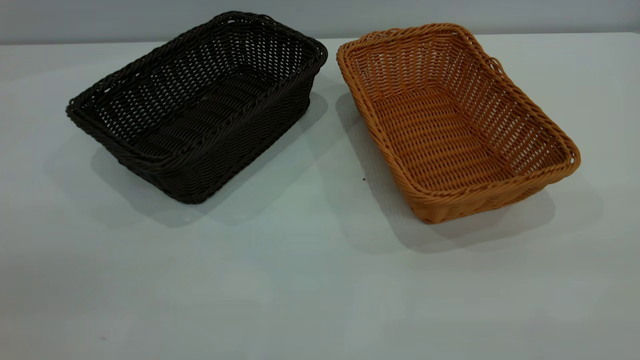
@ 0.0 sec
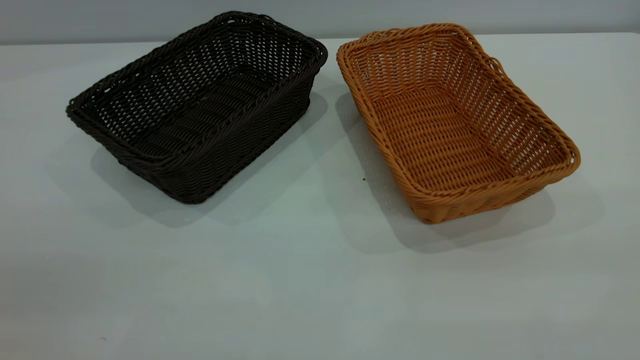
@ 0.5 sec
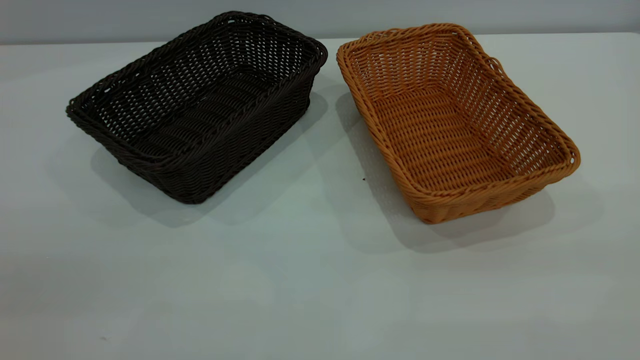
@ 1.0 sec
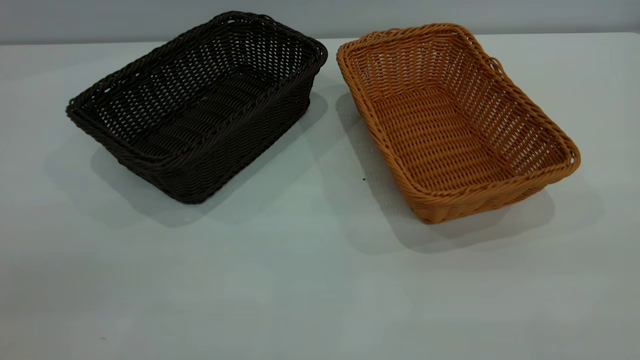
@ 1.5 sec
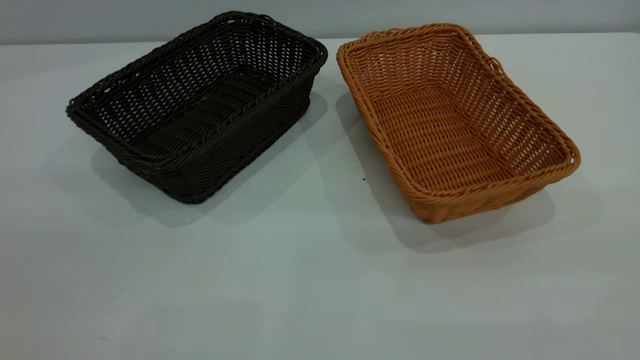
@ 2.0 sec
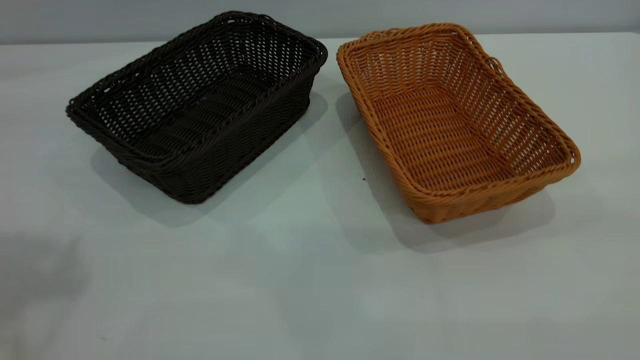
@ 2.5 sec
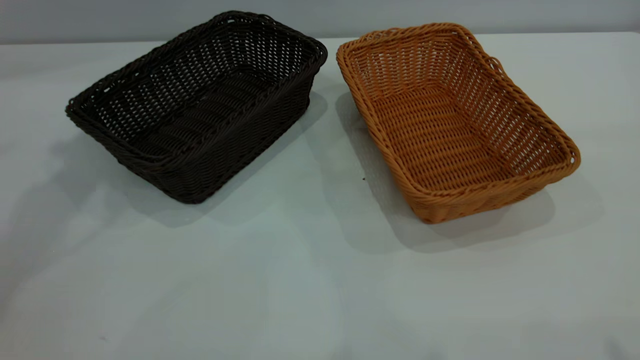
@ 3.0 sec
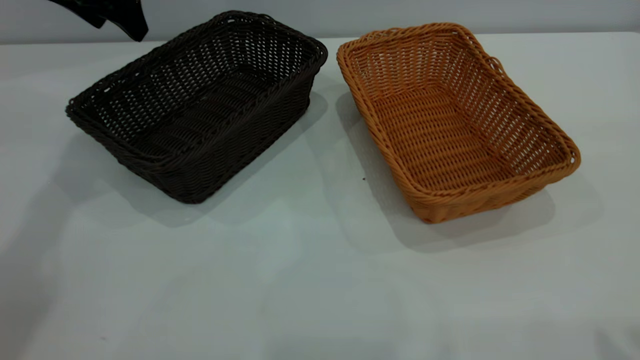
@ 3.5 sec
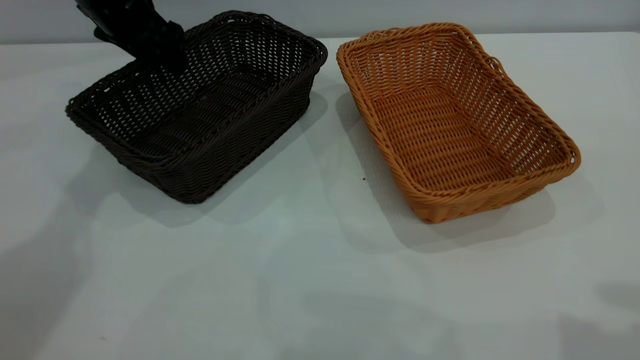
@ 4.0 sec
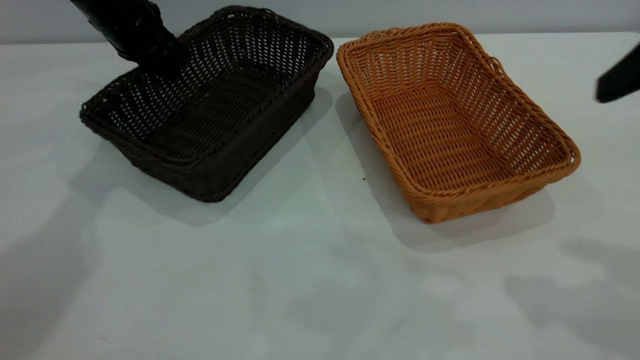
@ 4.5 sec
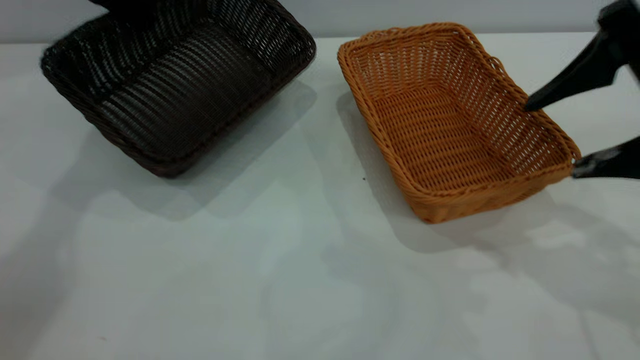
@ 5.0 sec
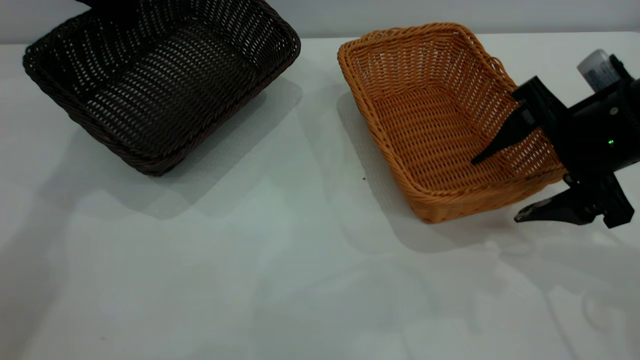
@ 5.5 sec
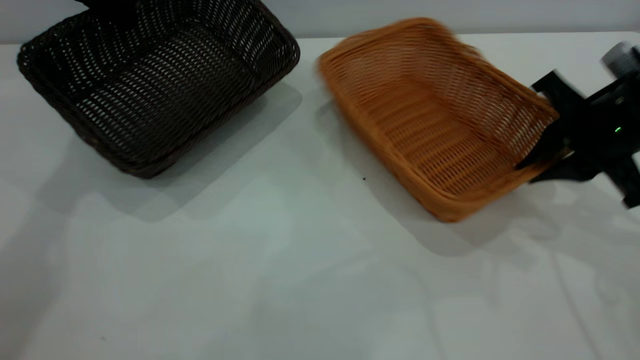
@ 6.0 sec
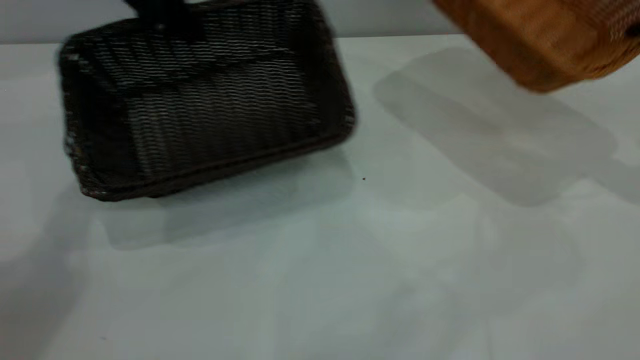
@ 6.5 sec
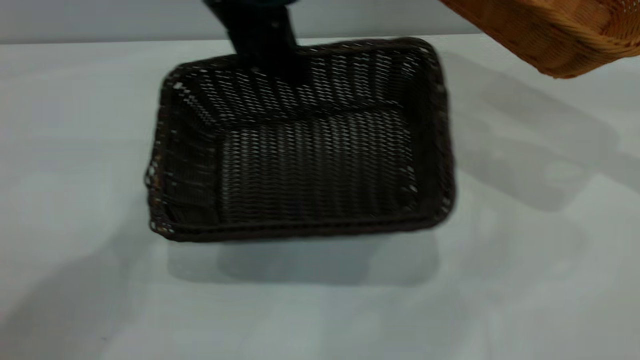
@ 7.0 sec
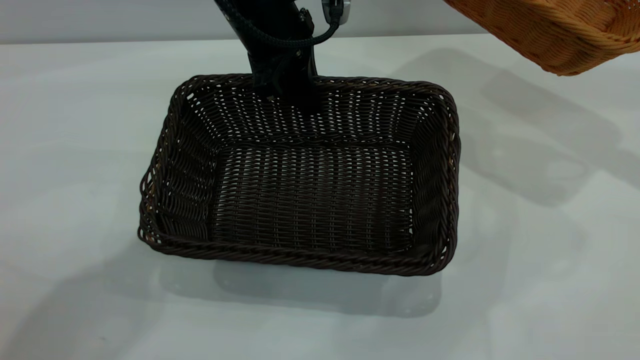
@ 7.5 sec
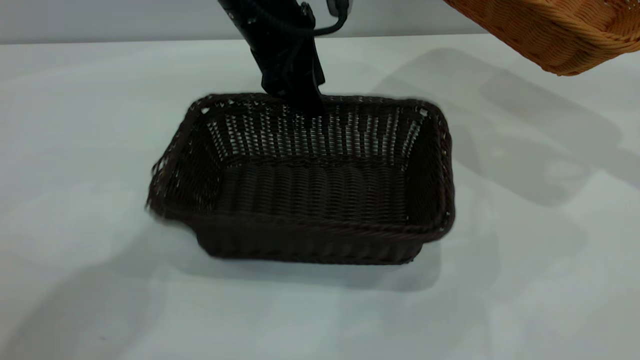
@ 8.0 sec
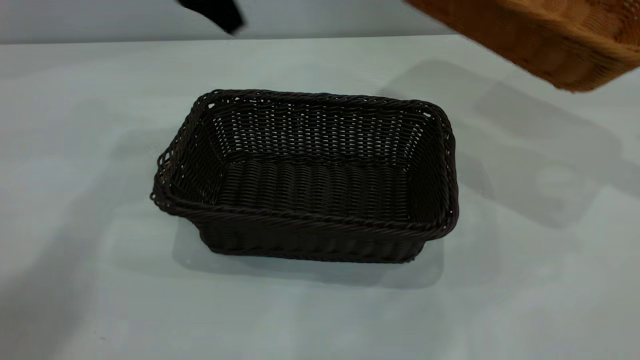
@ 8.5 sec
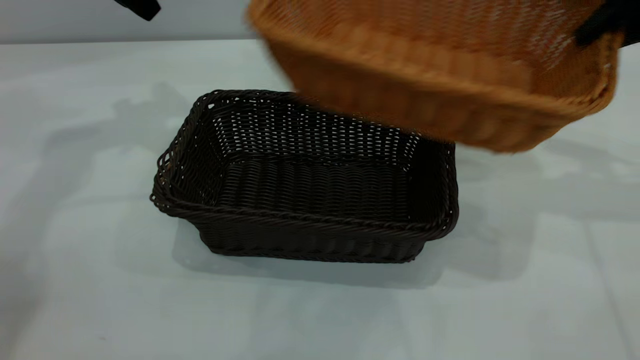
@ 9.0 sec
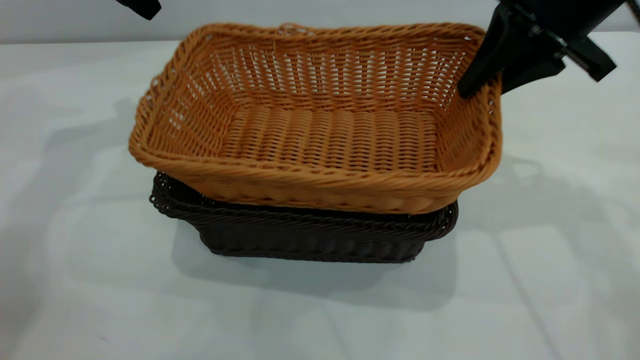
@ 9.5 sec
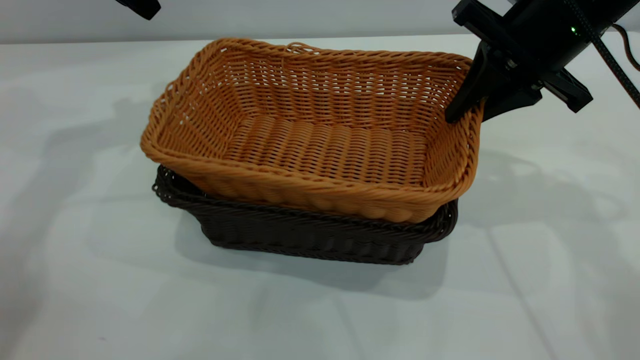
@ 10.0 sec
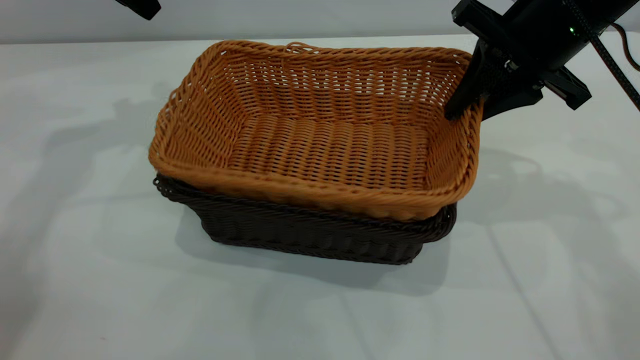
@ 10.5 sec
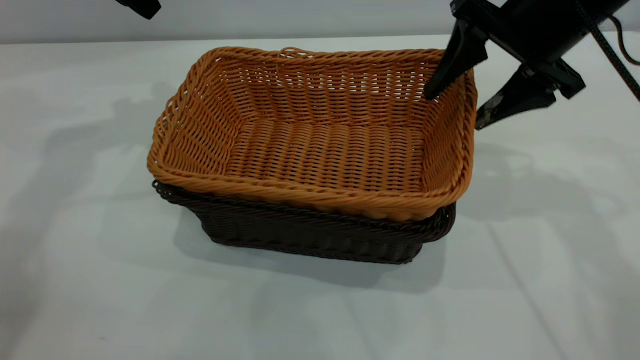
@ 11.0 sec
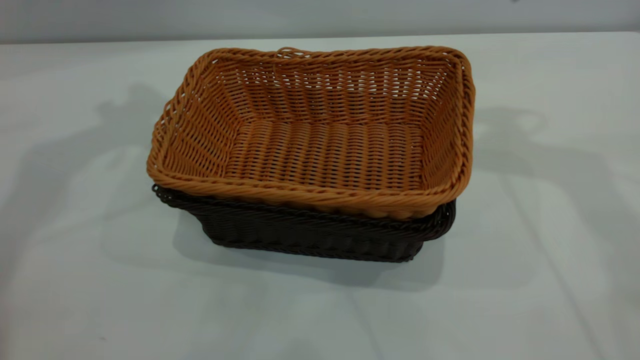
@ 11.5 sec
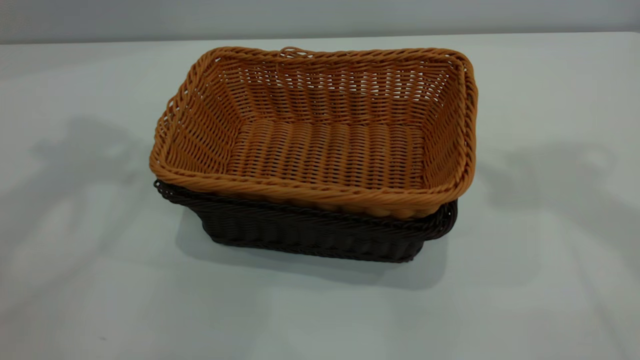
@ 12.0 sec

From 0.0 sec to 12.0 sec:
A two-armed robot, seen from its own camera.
Task of the whole recording: the left gripper grasp the black basket and place it in the center of the table, the right gripper grasp the brown basket and place it inside the black one.
Step, from 0.0 sec to 6.0 sec: Pick up the light basket with the right gripper.
Step, from 6.5 sec to 8.0 sec: Move the dark basket to the center of view.
Step, from 8.5 sec to 11.0 sec: Place the light basket on the dark basket.
From 2.0 sec to 4.0 sec: The left gripper is displaced forward and downward by roughly 50 cm.
From 4.0 sec to 6.0 sec: The right gripper is displaced downward and forward by about 25 cm, and closes. Meanwhile the left gripper heads upward, covering some 5 cm, and closes its fingers.
From 6.0 sec to 8.0 sec: The right gripper travels to the right and upward by roughly 20 cm; the left gripper shifts approximately 20 cm to the right, and opens its fingers.
From 8.0 sec to 10.0 sec: The two grippers go roughly 20 cm to the left.
From 10.0 sec to 12.0 sec: The left gripper travels upward and backward by approximately 25 cm. The right gripper moves upward, approximately 30 cm, and opens up.

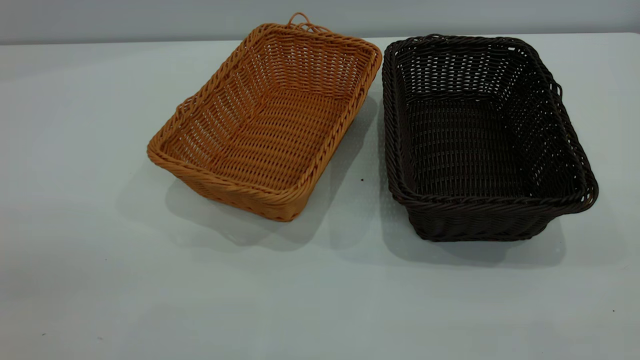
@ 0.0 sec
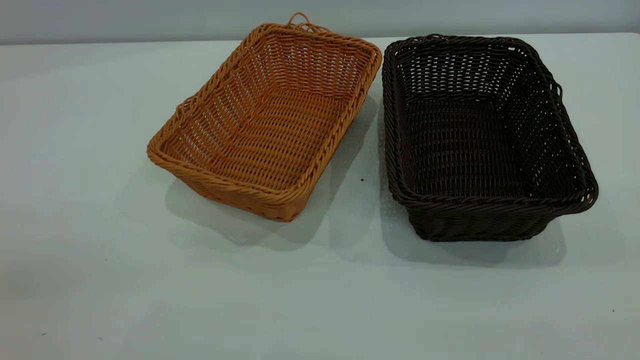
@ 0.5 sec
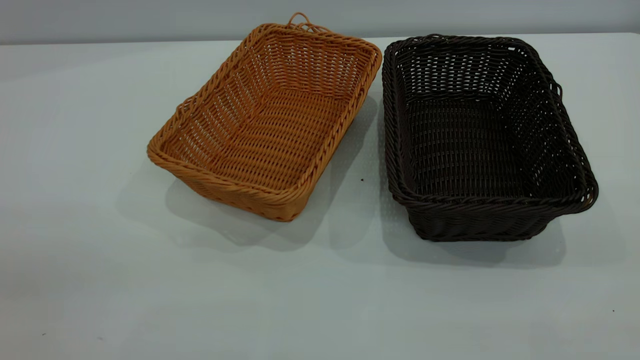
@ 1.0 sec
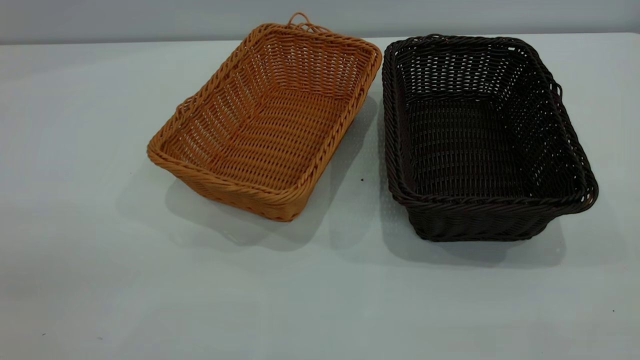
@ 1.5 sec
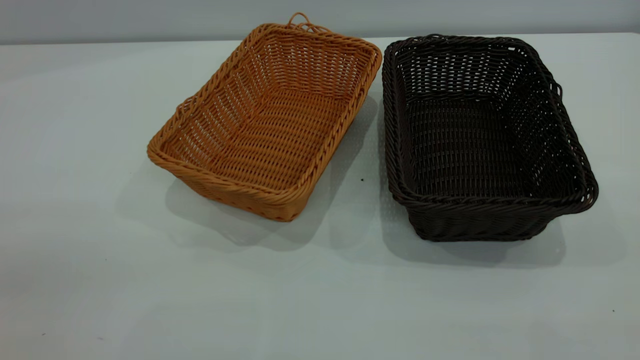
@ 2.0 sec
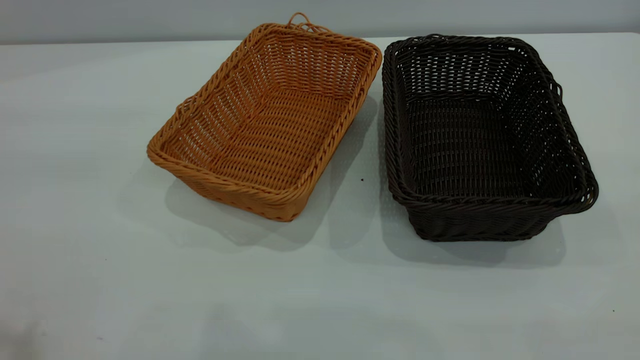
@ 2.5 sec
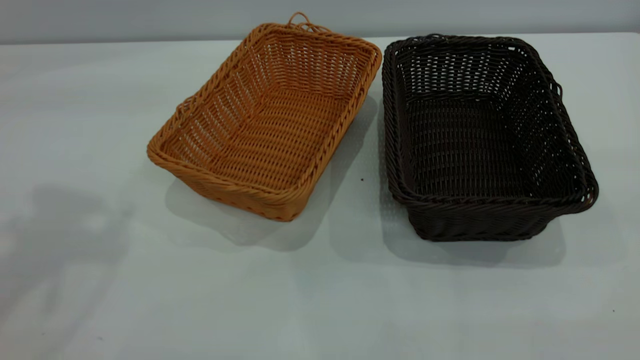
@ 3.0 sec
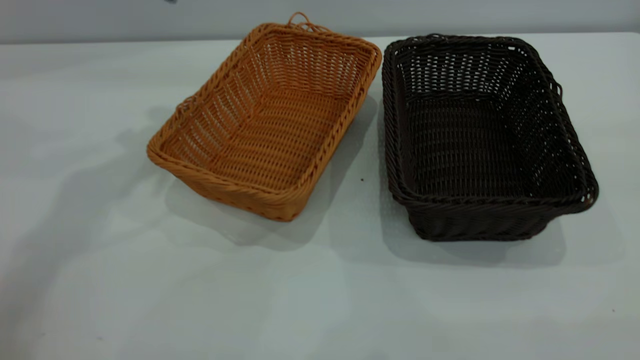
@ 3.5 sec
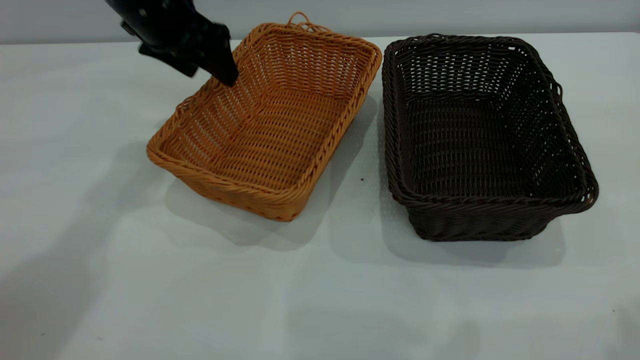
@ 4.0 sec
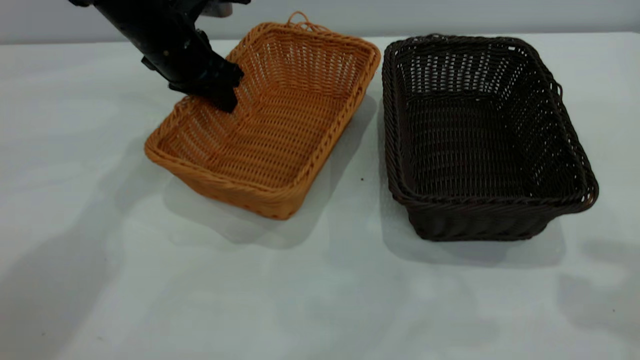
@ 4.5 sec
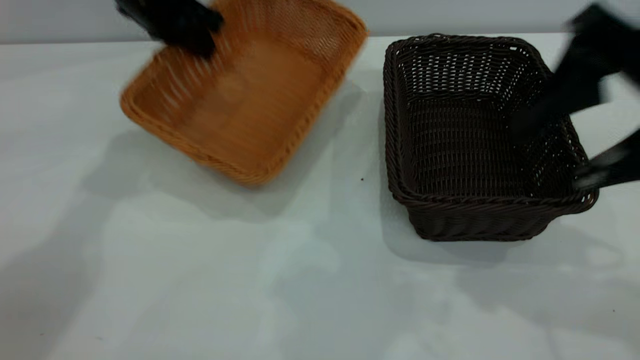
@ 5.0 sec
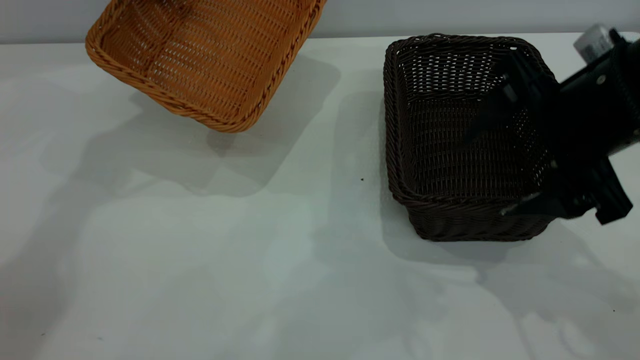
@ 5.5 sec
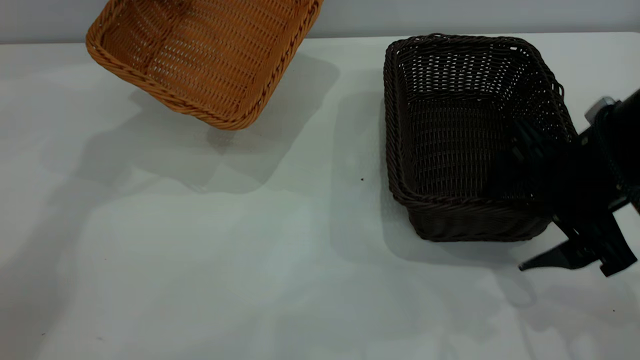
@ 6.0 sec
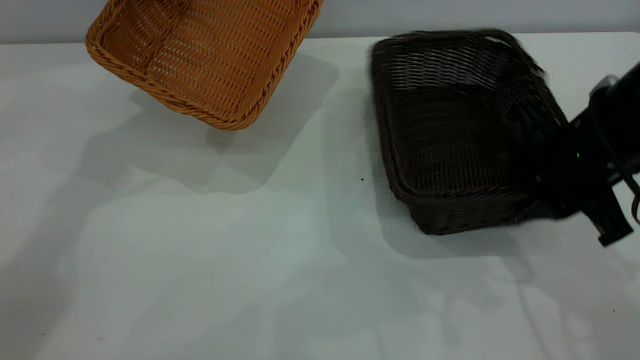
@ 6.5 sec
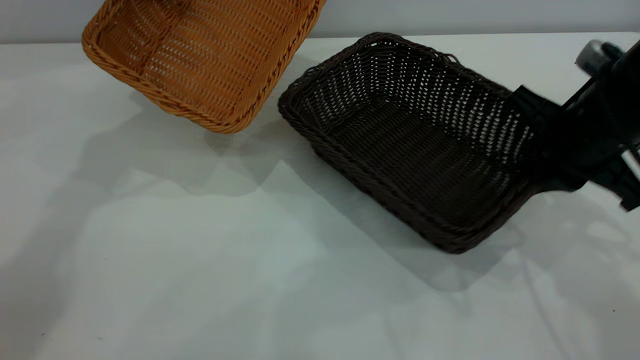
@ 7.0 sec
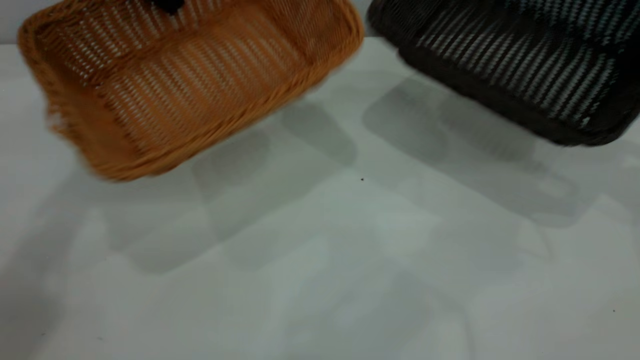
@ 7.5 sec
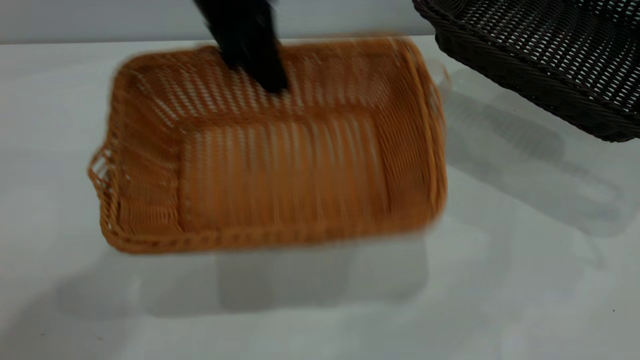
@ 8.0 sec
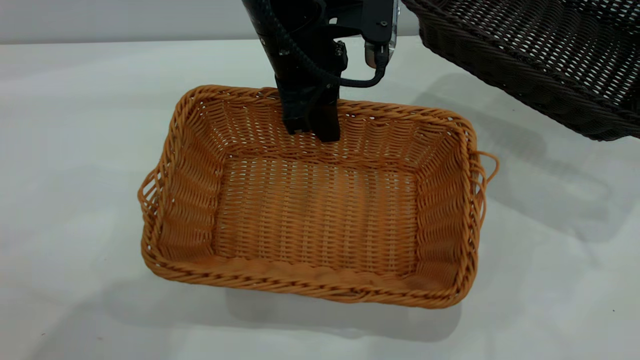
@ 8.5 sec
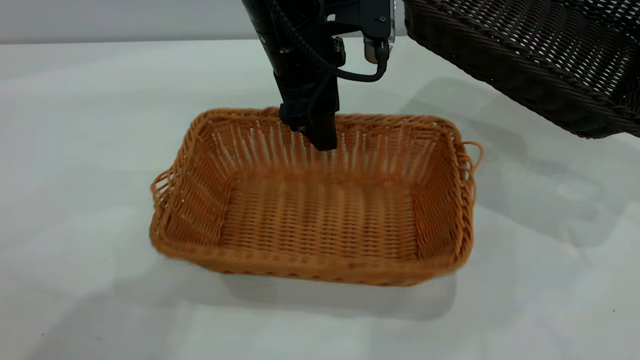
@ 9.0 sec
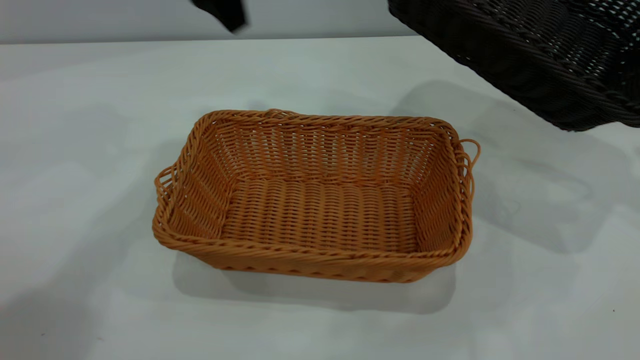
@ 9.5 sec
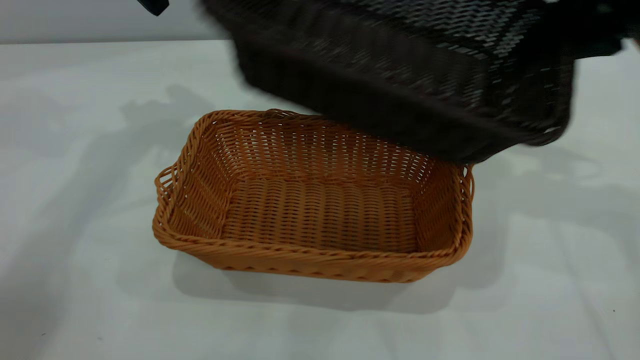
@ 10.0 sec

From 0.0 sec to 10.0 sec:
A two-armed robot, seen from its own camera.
Task of the whole recording: the left gripper grasp the brown basket and place it in the center of the table, the right gripper grasp the black basket and place it inside the brown one.
Step, from 0.0 sec to 5.0 sec: Pick up the light basket with the right gripper.
Step, from 5.5 sec to 9.0 sec: Place the light-colored basket in the center.
From 0.0 sec to 2.0 sec: Both grippers stay about where they are.
From 2.0 sec to 4.0 sec: The left gripper travels forward and downward by some 50 cm.
From 4.0 sec to 6.0 sec: The left gripper goes some 10 cm upward, and closes up; the right gripper heads downward and forward, covering approximately 25 cm.
From 6.0 sec to 8.0 sec: The right gripper is displaced to the right, upward and forward by approximately 25 cm, and closes its fingers. Meanwhile the left gripper heads to the right and backward, covering roughly 15 cm.
From 8.0 sec to 10.0 sec: The left gripper goes roughly 15 cm to the left, upward and forward, and opens up. Meanwhile the right gripper heads to the left, covering roughly 15 cm.
